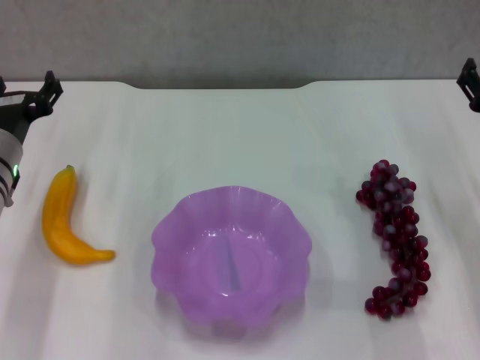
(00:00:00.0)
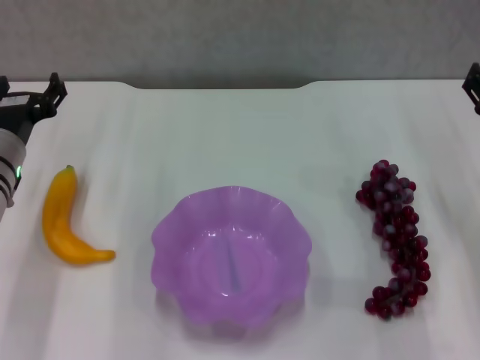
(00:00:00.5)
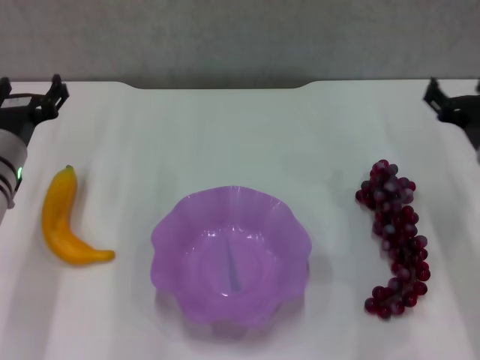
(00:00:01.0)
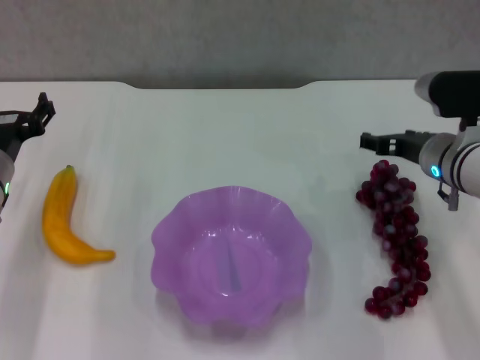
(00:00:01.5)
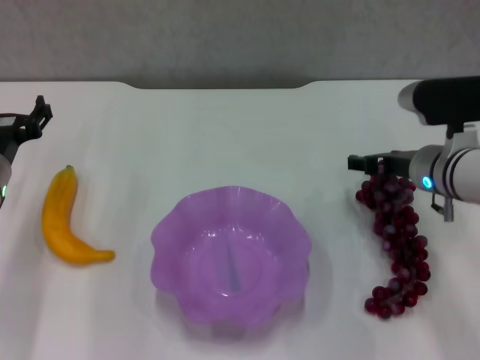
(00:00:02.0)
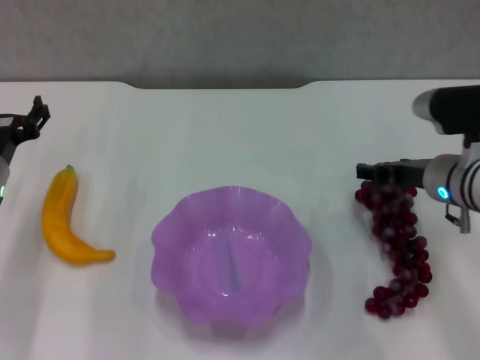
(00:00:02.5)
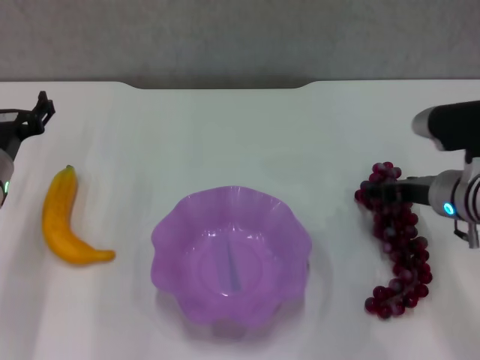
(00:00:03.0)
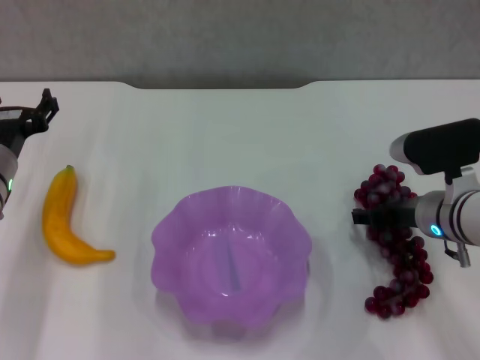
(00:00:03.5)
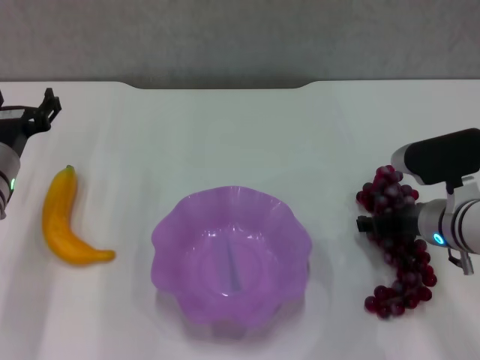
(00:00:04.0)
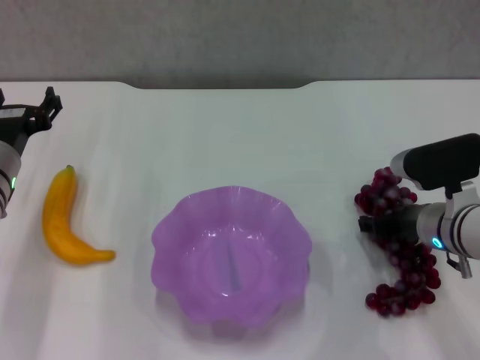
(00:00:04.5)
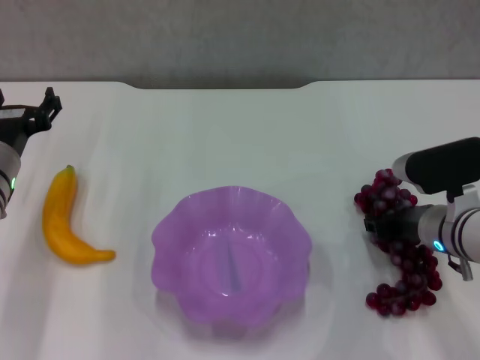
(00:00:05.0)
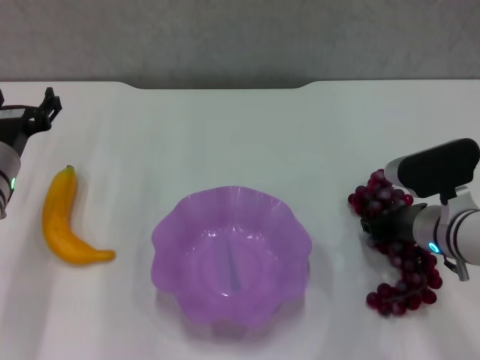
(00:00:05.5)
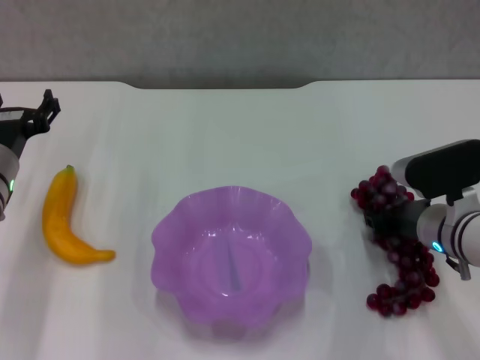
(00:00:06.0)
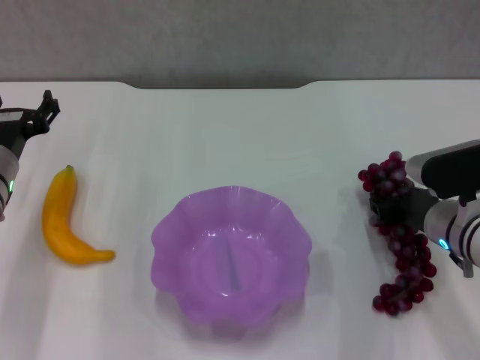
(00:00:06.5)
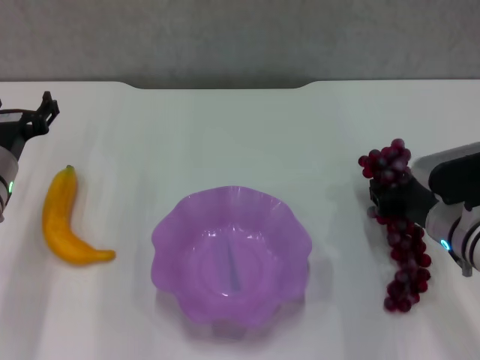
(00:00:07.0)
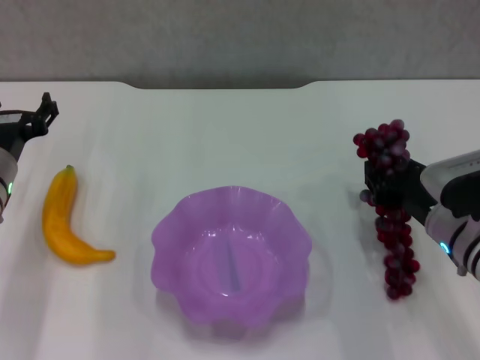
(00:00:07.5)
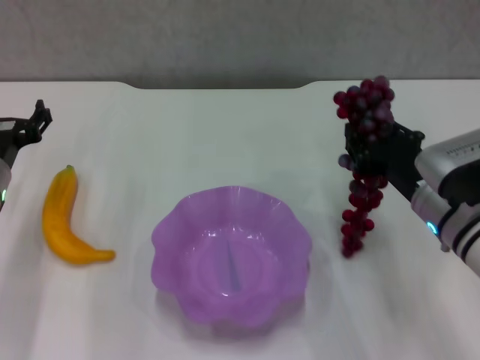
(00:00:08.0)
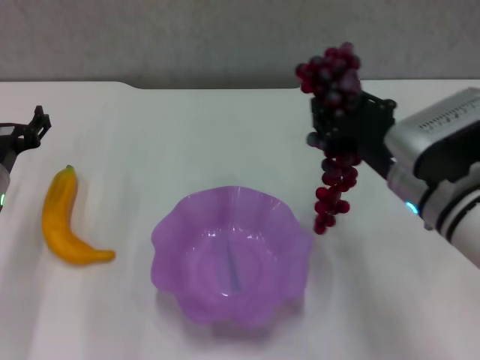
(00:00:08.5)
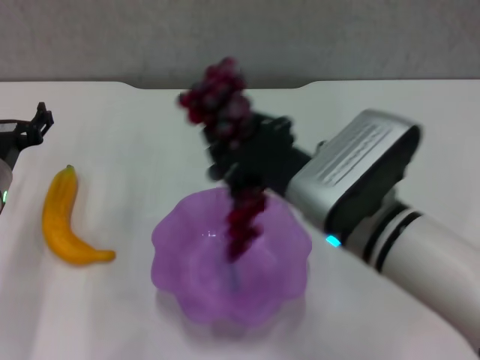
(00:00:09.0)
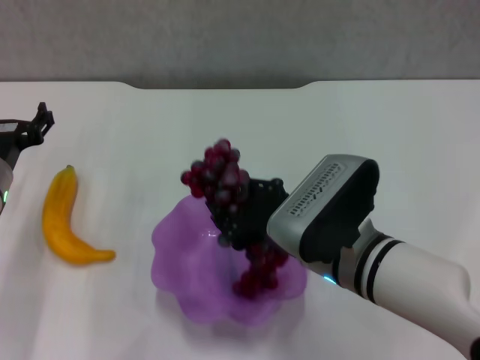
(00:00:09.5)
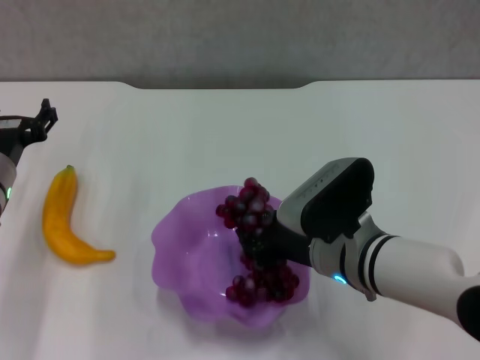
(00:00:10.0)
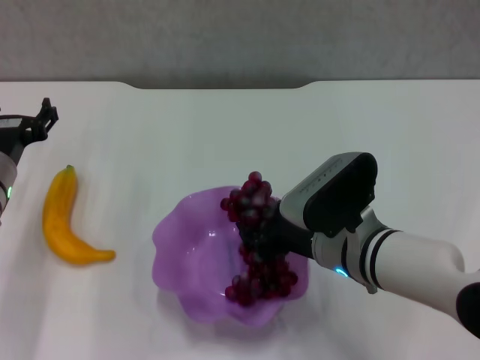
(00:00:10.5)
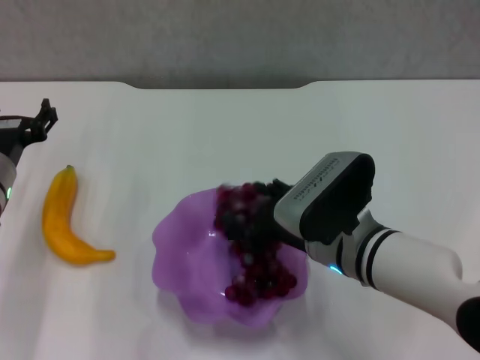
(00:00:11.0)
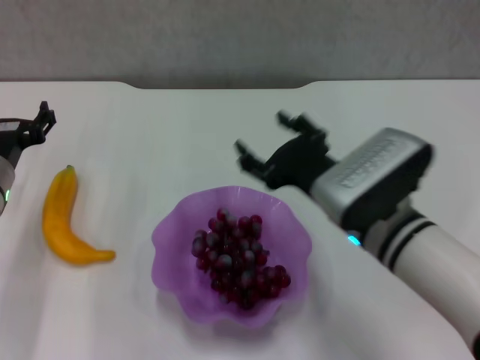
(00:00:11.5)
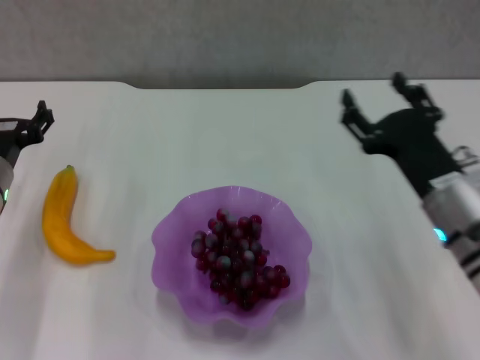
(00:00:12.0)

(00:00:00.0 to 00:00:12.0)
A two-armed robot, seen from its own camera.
Step, 00:00:00.0 - 00:00:05.5: Grasp the grape with right gripper.
Step, 00:00:06.0 - 00:00:11.0: Place the grape in the purple plate with right gripper.
00:00:00.0 - 00:00:02.0: The right gripper is displaced to the left by roughly 5 cm.
00:00:02.0 - 00:00:04.0: The right gripper ends up approximately 5 cm from where it was.
00:00:04.0 - 00:00:06.0: The right gripper closes up.
00:00:08.0 - 00:00:10.0: The right gripper moves to the left, about 10 cm.
00:00:10.0 - 00:00:12.0: The right gripper heads to the right, covering some 10 cm, and opens its fingers.

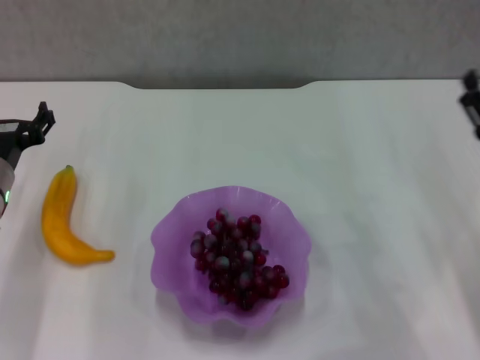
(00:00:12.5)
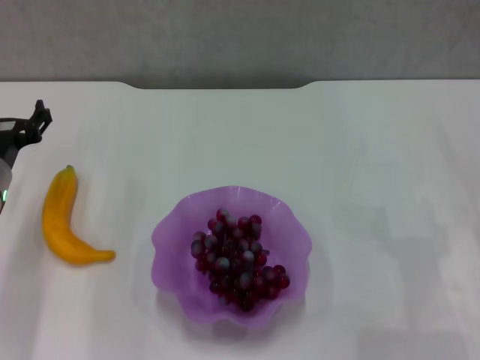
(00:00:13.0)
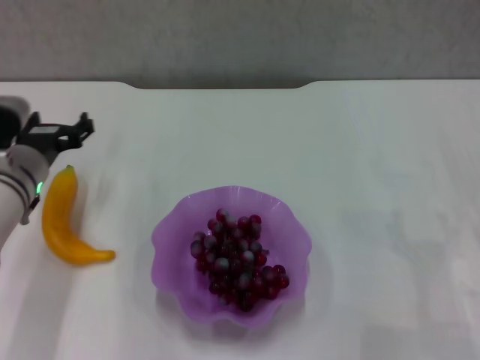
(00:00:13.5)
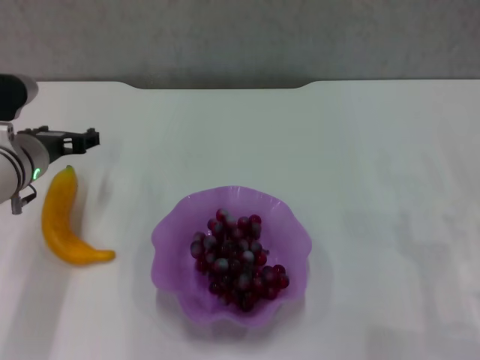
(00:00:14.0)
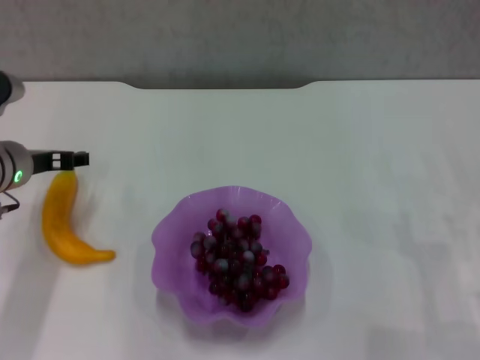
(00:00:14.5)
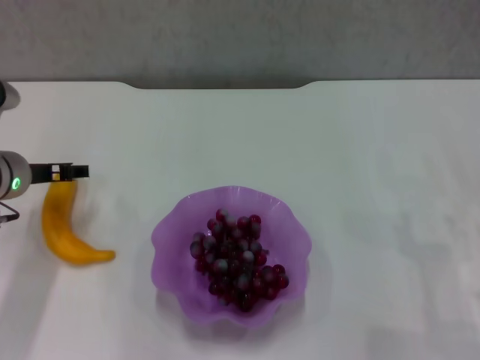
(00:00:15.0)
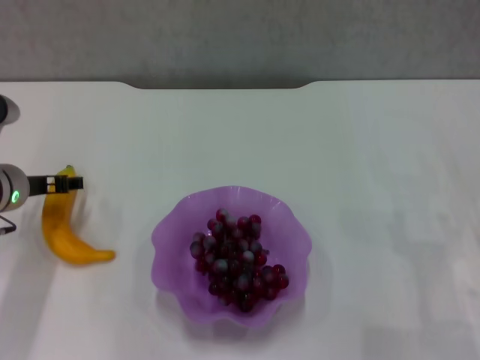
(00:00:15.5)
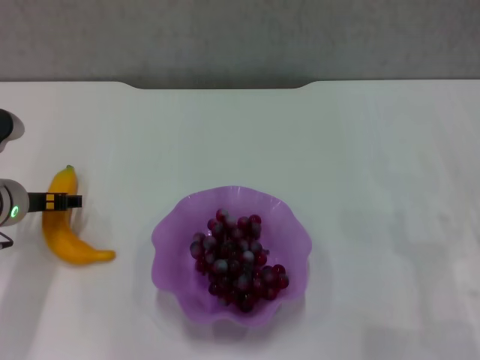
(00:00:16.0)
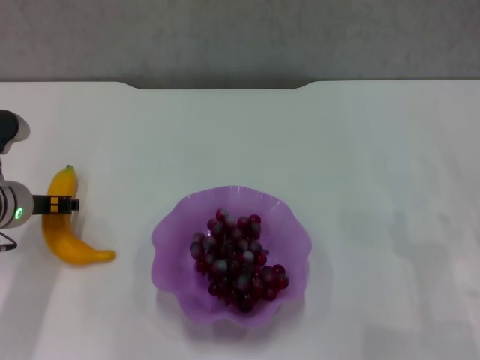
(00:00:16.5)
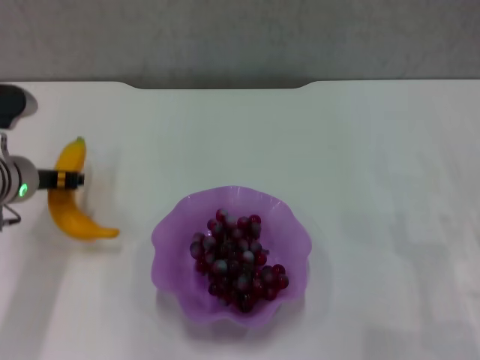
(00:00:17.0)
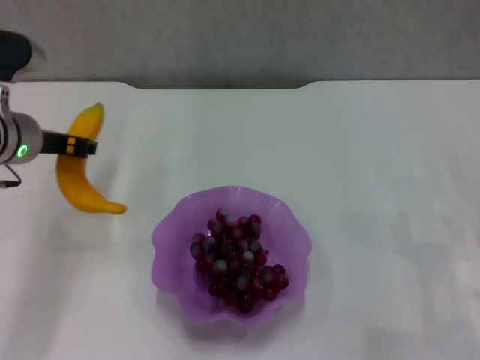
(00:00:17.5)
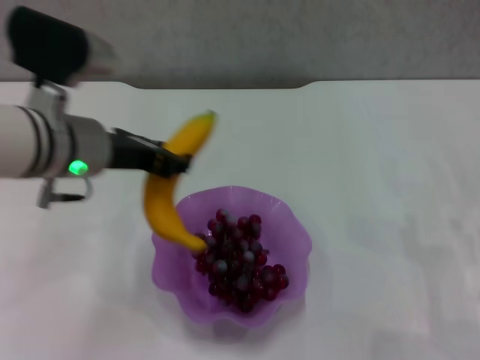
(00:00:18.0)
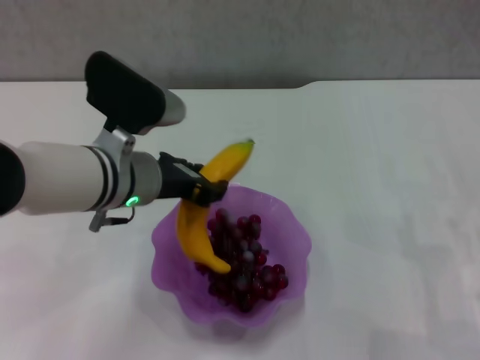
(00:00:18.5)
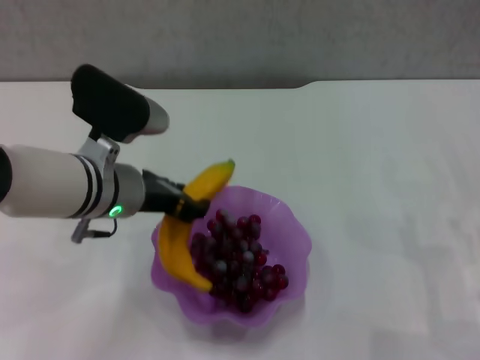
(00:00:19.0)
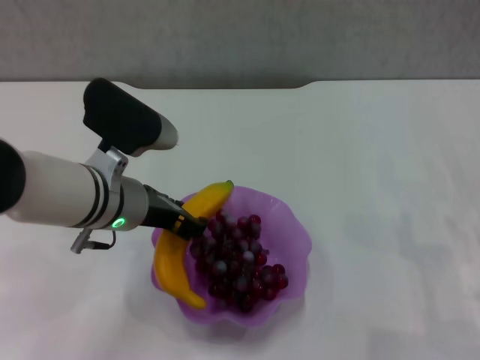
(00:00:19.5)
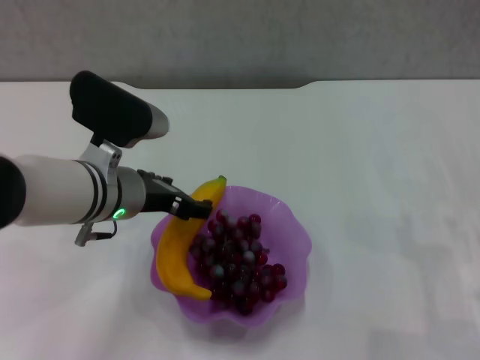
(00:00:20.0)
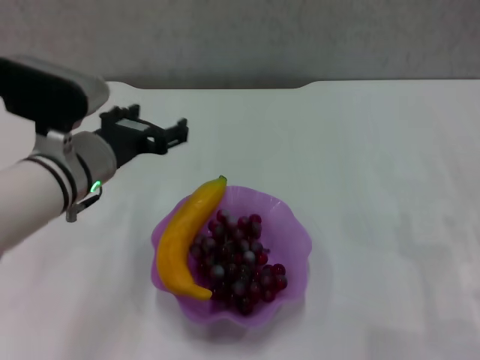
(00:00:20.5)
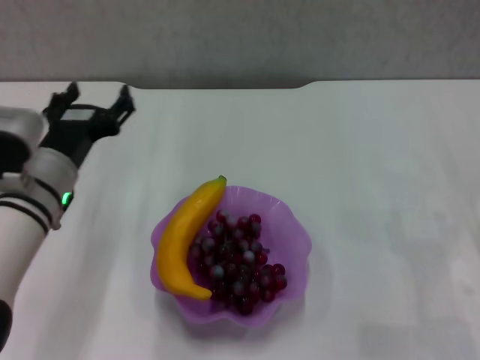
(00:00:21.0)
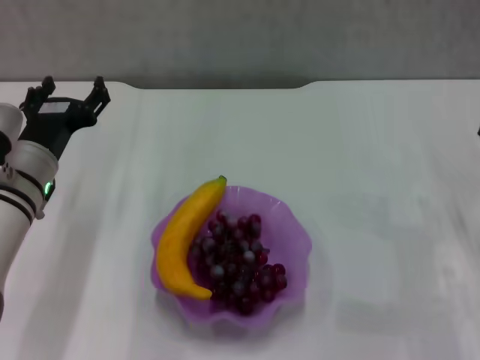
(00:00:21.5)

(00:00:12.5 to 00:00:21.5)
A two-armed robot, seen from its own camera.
Step, 00:00:12.5 - 00:00:16.5: Grasp the banana with left gripper.
Step, 00:00:17.0 - 00:00:19.5: Place the banana in the purple plate with left gripper.
00:00:12.5 - 00:00:14.5: The right gripper goes about 5 cm to the right.
00:00:14.5 - 00:00:17.0: The left gripper closes its fingers.
00:00:17.0 - 00:00:19.5: The left gripper heads to the right, covering approximately 10 cm.
00:00:19.5 - 00:00:21.5: The left gripper moves to the left, roughly 10 cm, and opens its fingers.
